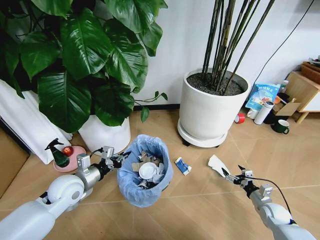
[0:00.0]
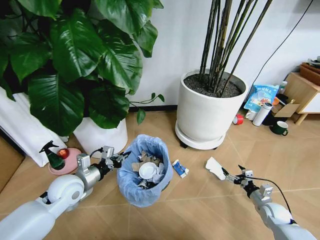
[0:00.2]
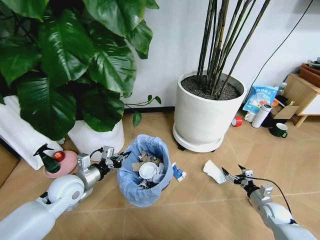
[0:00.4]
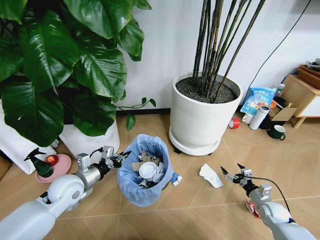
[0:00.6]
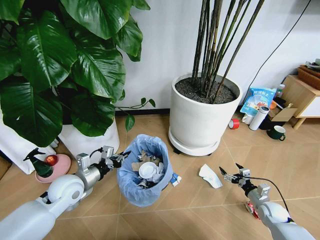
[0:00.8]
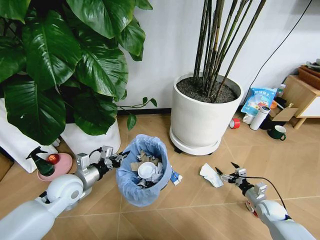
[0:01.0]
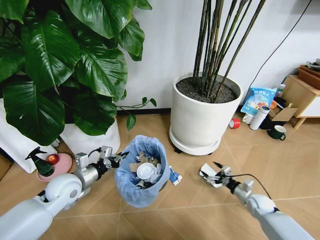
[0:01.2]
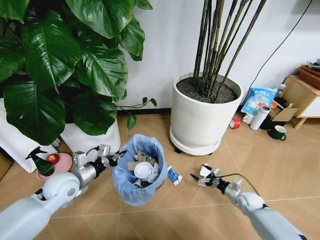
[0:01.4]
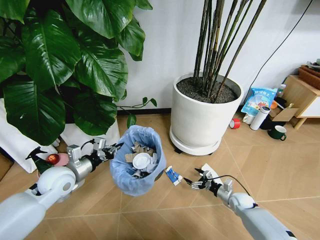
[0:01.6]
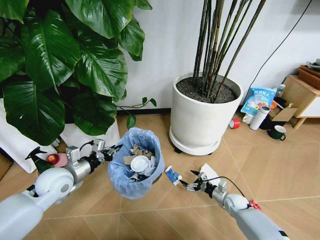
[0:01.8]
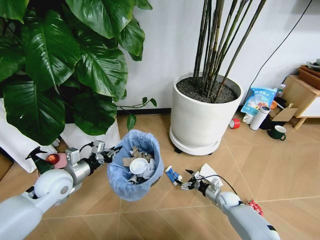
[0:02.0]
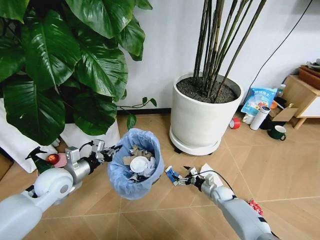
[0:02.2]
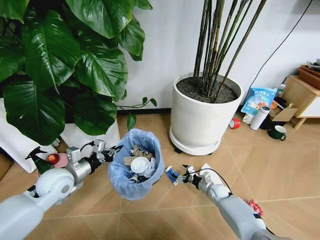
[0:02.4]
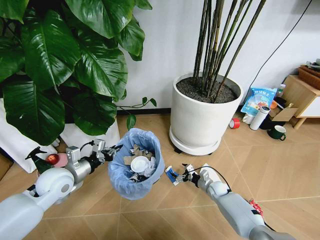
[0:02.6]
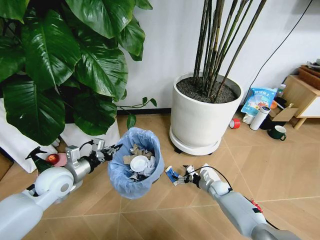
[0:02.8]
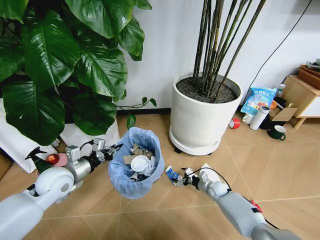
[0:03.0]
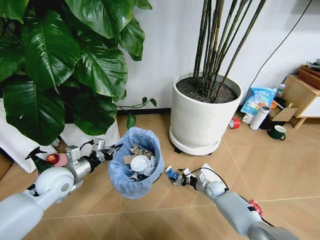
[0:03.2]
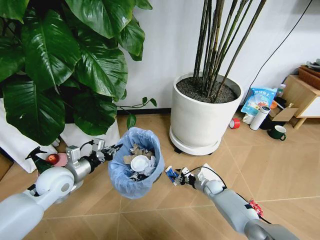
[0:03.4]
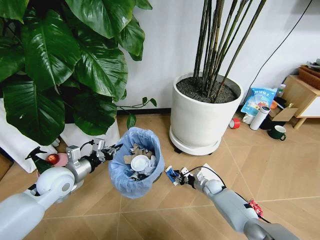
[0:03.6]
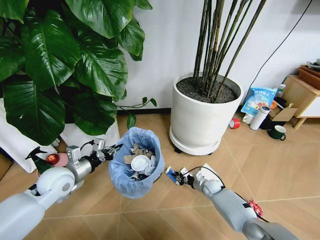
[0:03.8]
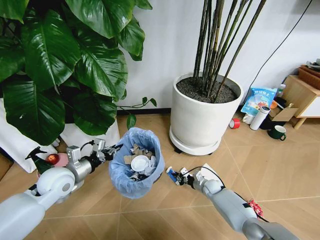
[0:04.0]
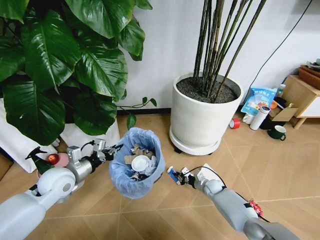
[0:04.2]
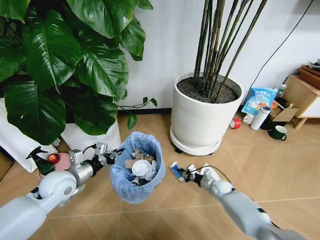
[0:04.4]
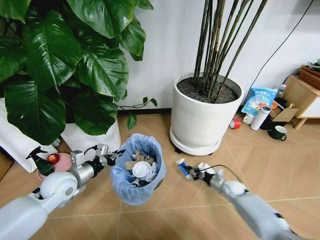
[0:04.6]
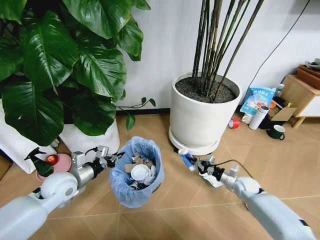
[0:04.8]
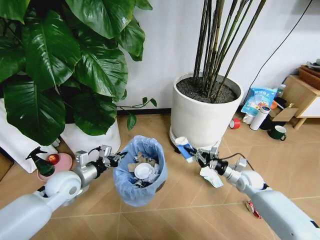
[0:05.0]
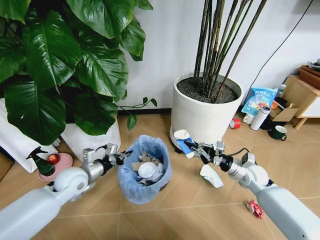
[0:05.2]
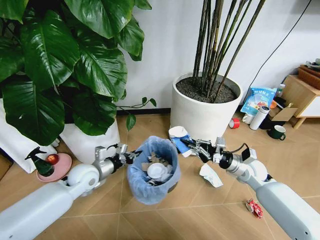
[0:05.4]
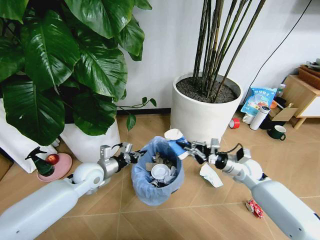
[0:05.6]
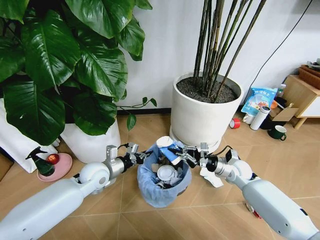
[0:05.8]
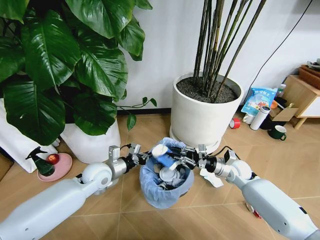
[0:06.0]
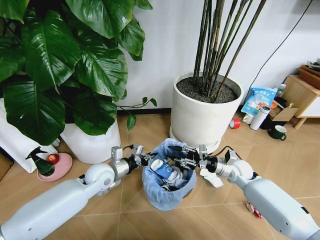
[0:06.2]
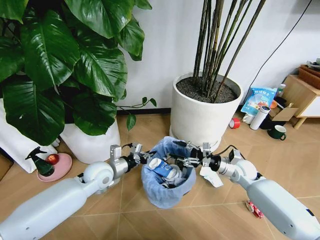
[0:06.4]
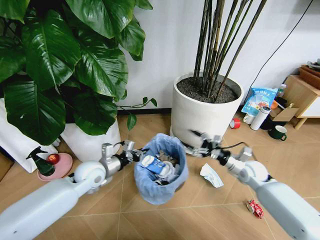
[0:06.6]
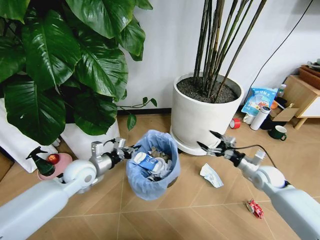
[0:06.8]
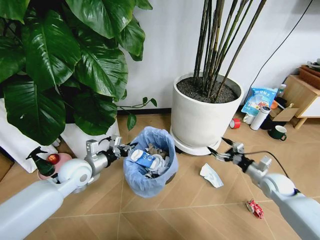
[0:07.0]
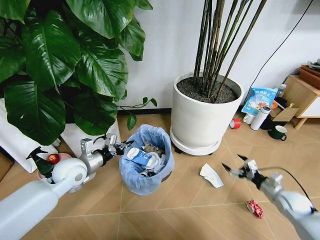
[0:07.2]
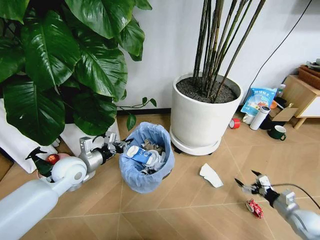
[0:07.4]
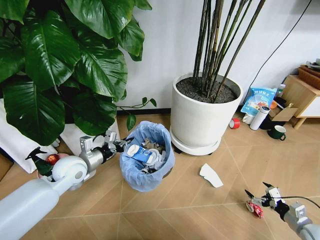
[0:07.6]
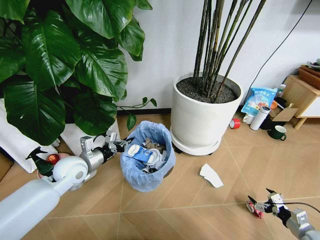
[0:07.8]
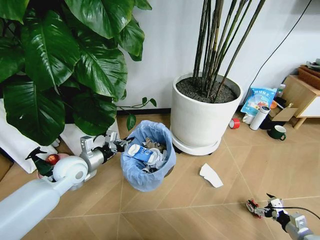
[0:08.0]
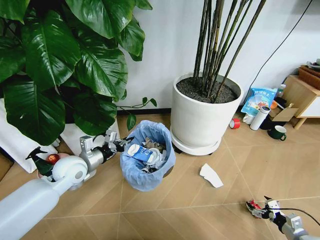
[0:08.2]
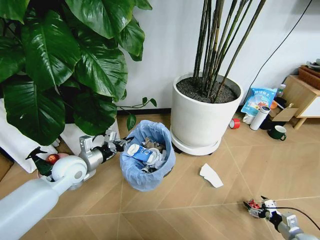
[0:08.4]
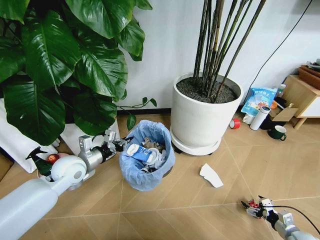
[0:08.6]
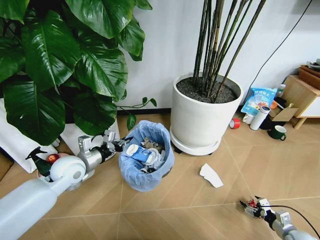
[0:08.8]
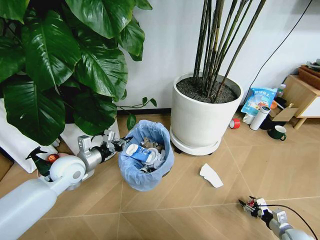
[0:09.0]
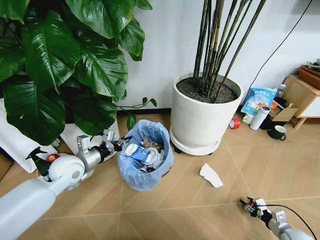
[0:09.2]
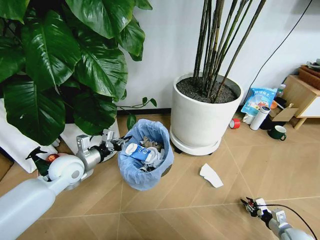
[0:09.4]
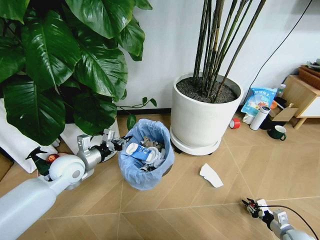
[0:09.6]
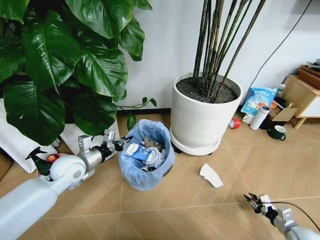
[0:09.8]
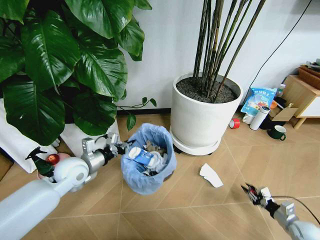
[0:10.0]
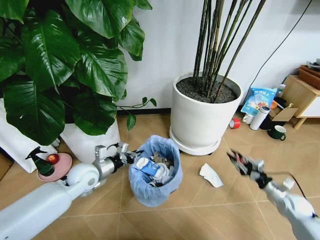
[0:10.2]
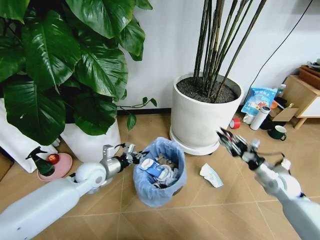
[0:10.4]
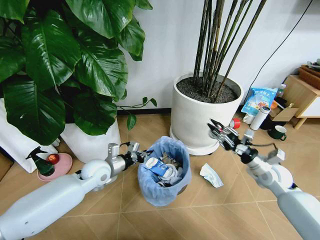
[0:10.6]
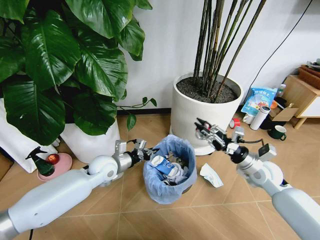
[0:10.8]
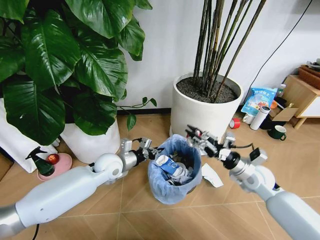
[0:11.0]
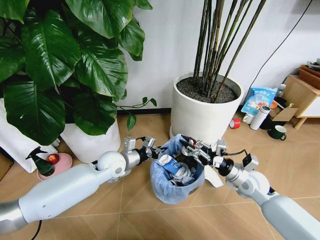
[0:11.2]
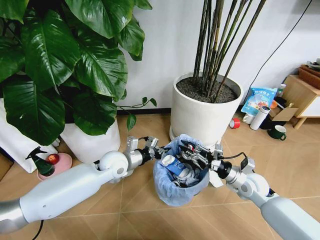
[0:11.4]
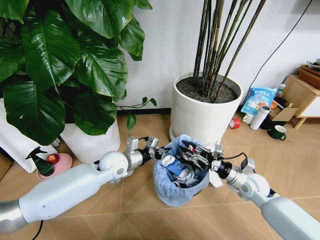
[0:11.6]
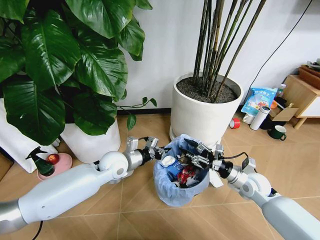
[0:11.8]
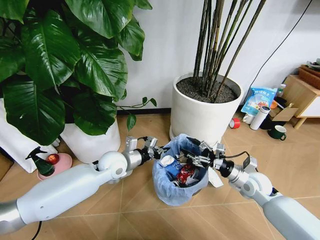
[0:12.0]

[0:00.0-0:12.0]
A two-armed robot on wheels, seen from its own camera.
Task of the whole recording: Pick up the trash bin and place the garbage on the floor into it.
0.0 to 1.6 s: The right gripper moves to the left and forward, roughly 10 cm.
1.6 to 3.0 s: The right gripper travels to the left and forward by about 10 cm.
3.0 to 4.4 s: The right gripper closes.
4.4 to 6.0 s: The right gripper moves upward, about 20 cm. Meanwhile the left gripper travels to the right by approximately 10 cm.
6.0 to 7.6 s: The left gripper moves to the left and upward, about 10 cm, while the right gripper shifts about 30 cm to the right and backward, and opens its fingers.
7.6 to 9.0 s: The right gripper travels downward by some 10 cm, and closes its fingers.
9.0 to 10.4 s: The left gripper heads downward and to the right, covering approximately 5 cm. The right gripper is displaced upward, forward and to the left by about 25 cm, and closes.
10.4 to 12.0 s: The left gripper is displaced to the right by some 10 cm. The right gripper travels to the left by about 10 cm, and opens.

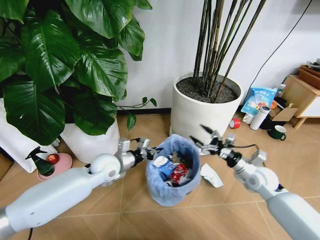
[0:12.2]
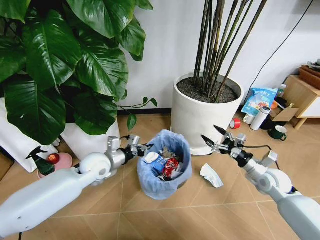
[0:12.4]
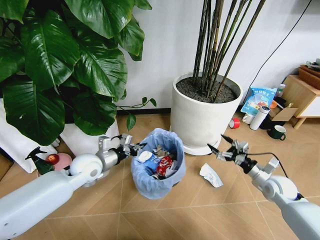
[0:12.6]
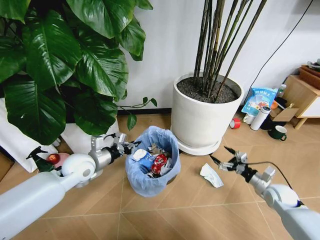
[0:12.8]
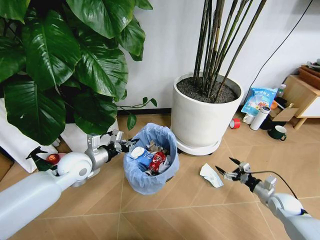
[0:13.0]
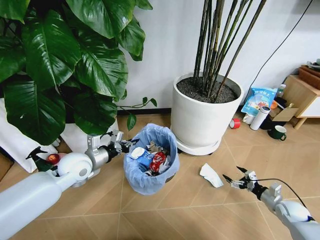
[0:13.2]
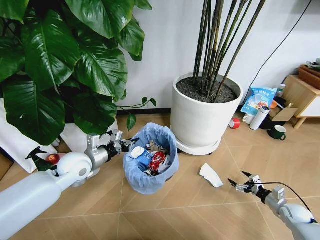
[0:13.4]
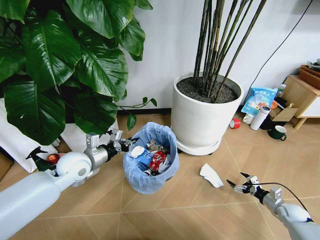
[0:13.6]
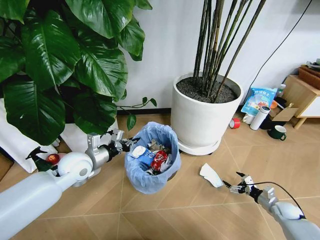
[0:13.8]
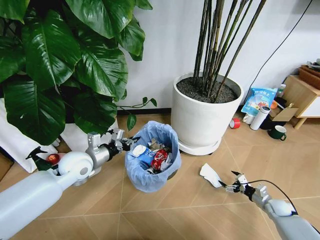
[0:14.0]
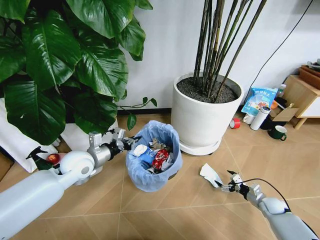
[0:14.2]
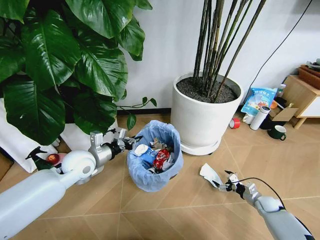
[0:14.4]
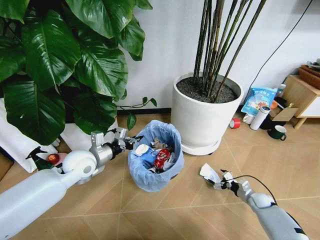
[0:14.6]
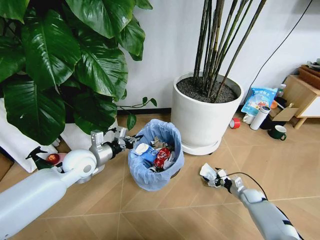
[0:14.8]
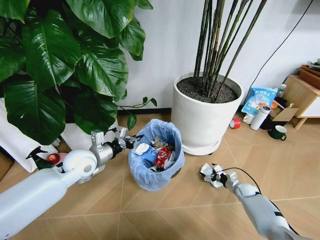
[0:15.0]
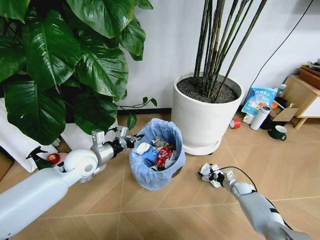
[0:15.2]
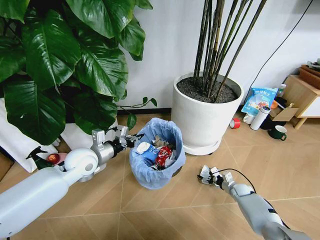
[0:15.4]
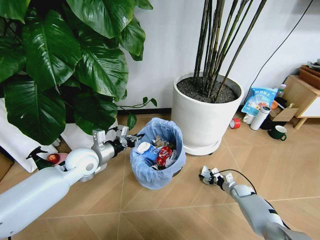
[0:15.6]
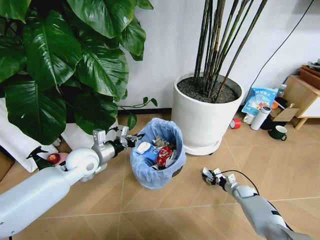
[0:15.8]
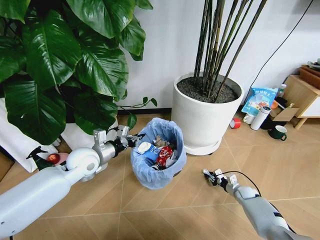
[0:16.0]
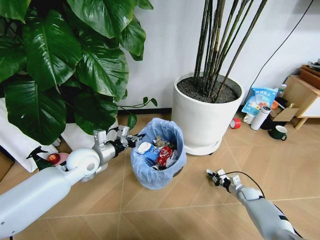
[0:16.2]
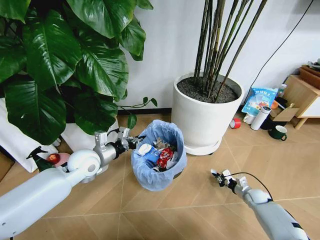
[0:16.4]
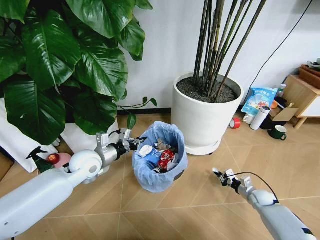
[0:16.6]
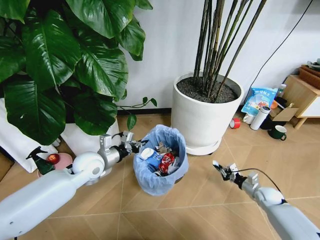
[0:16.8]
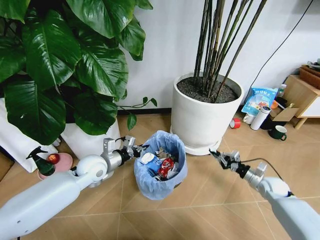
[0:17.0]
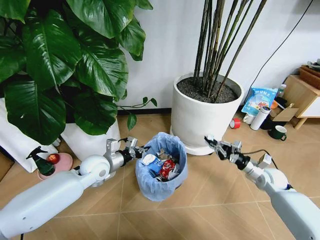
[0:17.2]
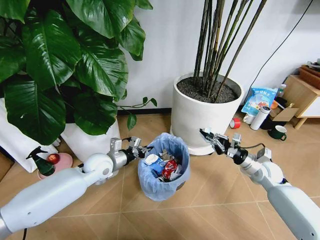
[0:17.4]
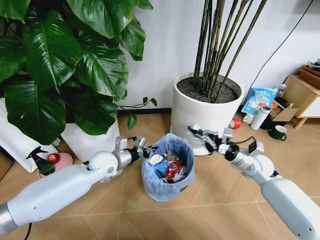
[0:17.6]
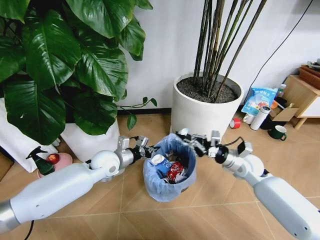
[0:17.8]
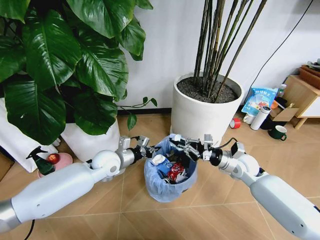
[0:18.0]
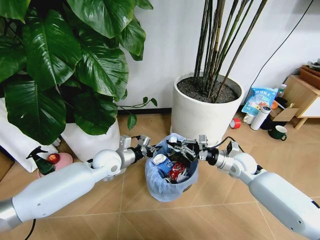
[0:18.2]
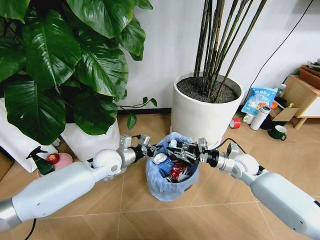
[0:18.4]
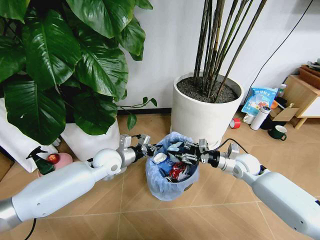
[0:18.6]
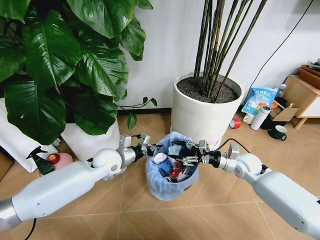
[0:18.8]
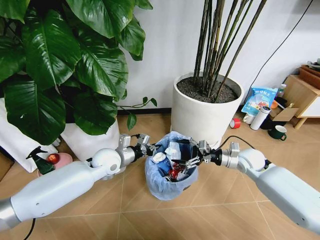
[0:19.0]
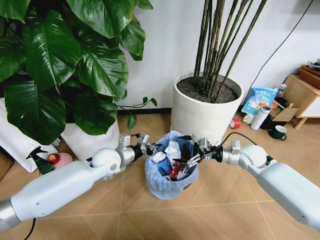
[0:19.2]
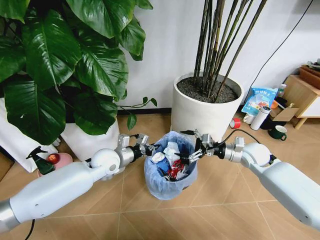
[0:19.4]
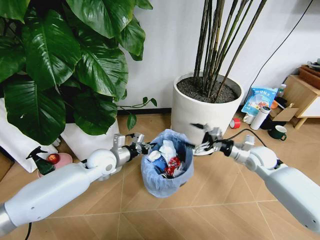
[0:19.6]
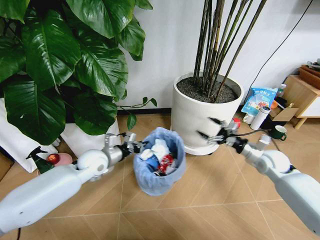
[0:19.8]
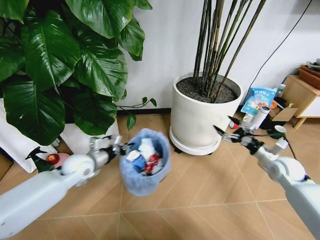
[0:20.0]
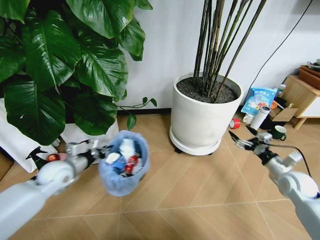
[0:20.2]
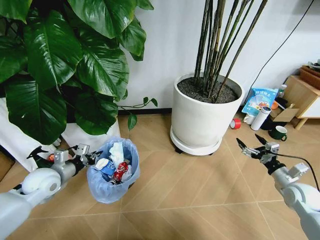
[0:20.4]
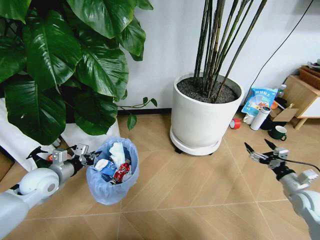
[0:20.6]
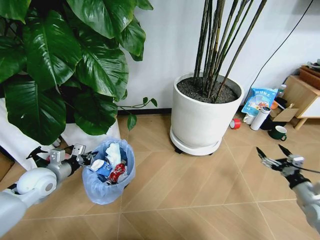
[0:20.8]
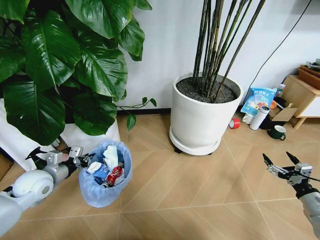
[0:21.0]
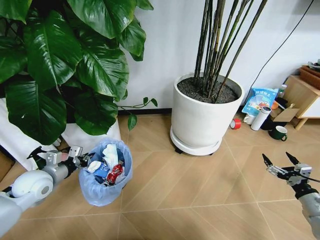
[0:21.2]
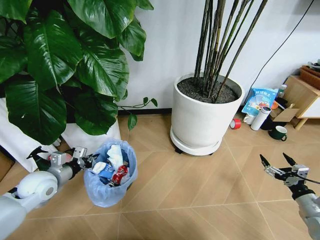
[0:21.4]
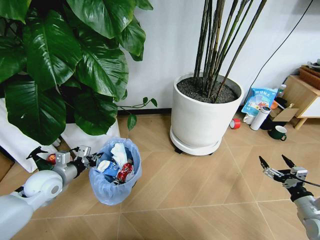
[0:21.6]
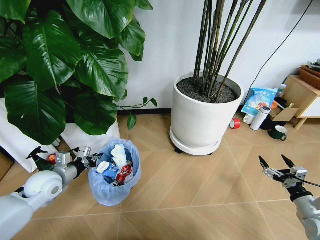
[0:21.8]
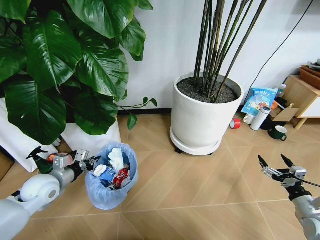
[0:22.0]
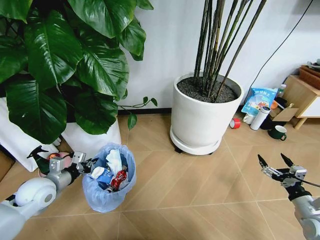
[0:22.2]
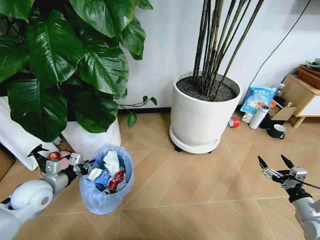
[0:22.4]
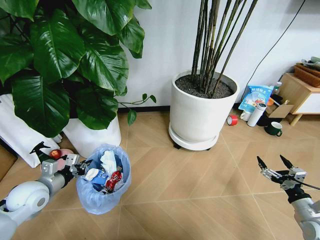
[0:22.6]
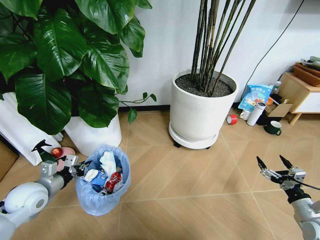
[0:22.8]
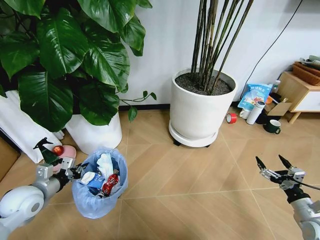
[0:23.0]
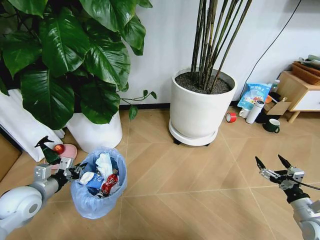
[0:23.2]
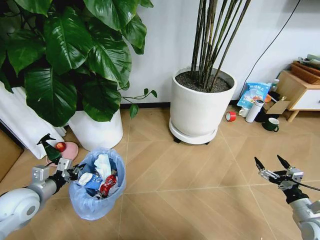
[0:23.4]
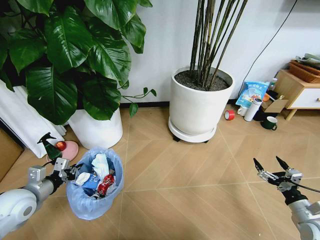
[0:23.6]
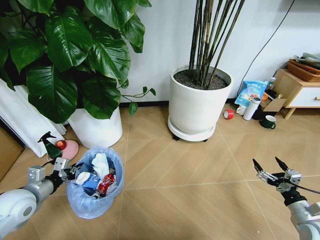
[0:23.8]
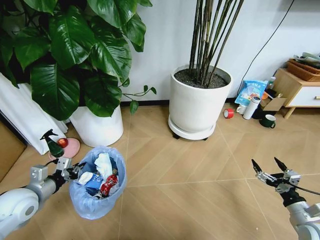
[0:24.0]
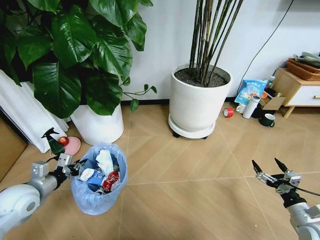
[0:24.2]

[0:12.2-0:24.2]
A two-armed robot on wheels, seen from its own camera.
Task of the whole recording: Pick up the trash bin and place the garbage on the floor into it.
12.2 to 13.8 s: The left gripper is displaced to the left by approximately 10 cm, while the right gripper is displaced downward and to the right by roughly 25 cm.
13.8 to 15.2 s: The right gripper heads to the left and forward, covering about 15 cm.
15.2 to 16.6 s: The right gripper goes some 5 cm backward, and closes its fingers.
16.6 to 18.2 s: The left gripper is displaced to the right by some 5 cm, while the right gripper is displaced upward and to the left by approximately 25 cm.
18.2 to 19.8 s: The left gripper is displaced to the left by approximately 5 cm. The right gripper moves to the right, roughly 10 cm, and opens.
19.8 to 21.2 s: The right gripper is displaced backward and to the right by some 25 cm, while the left gripper heads to the left and backward, covering approximately 15 cm.
